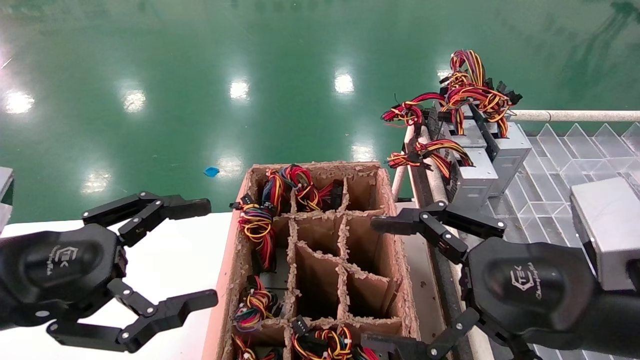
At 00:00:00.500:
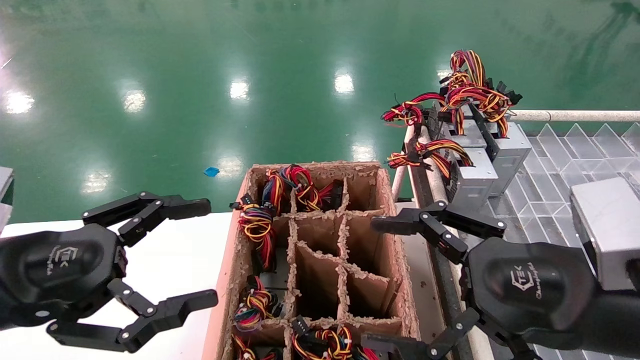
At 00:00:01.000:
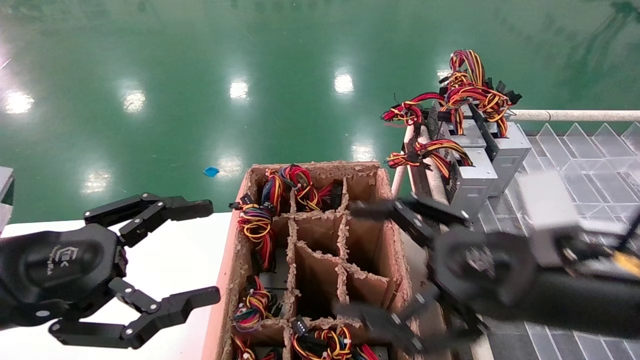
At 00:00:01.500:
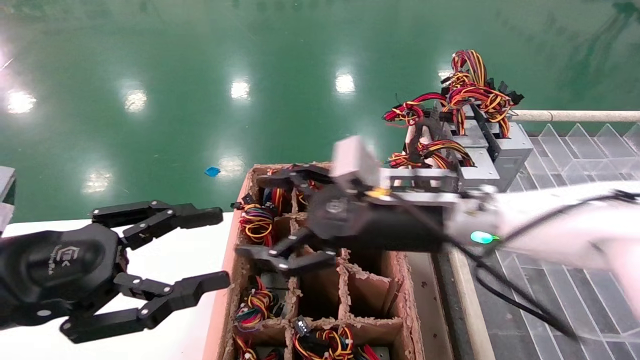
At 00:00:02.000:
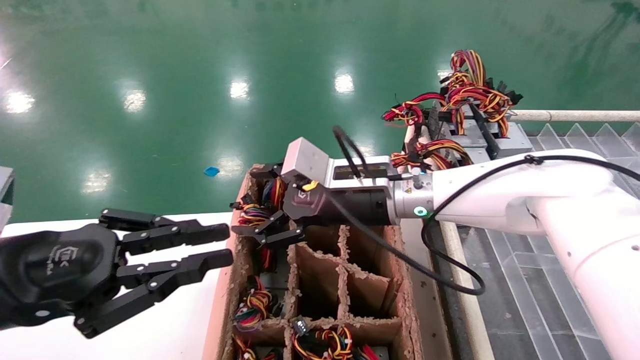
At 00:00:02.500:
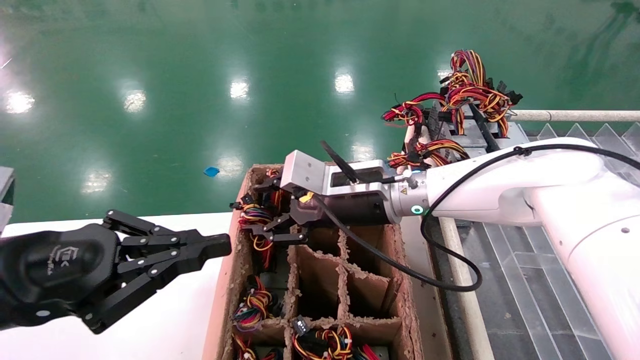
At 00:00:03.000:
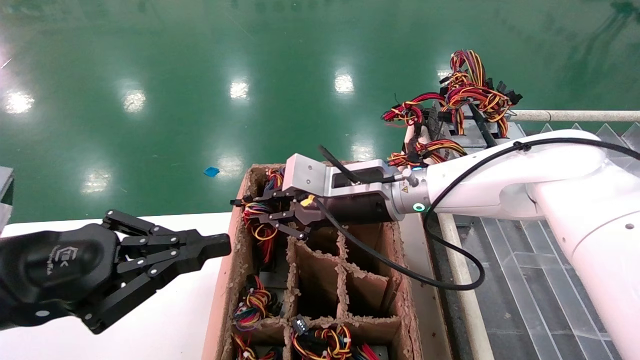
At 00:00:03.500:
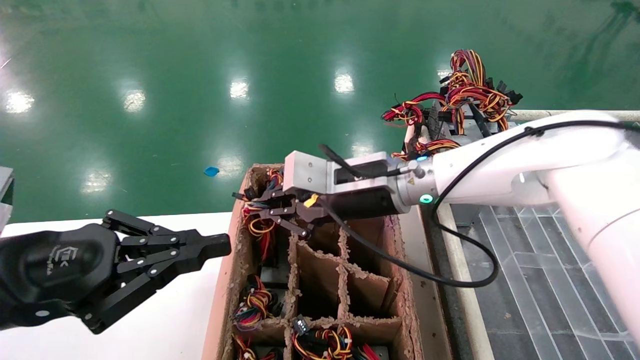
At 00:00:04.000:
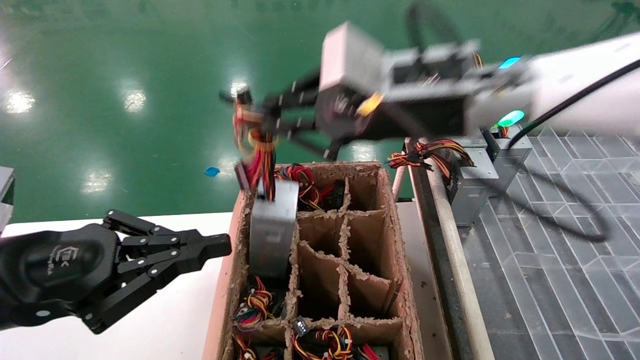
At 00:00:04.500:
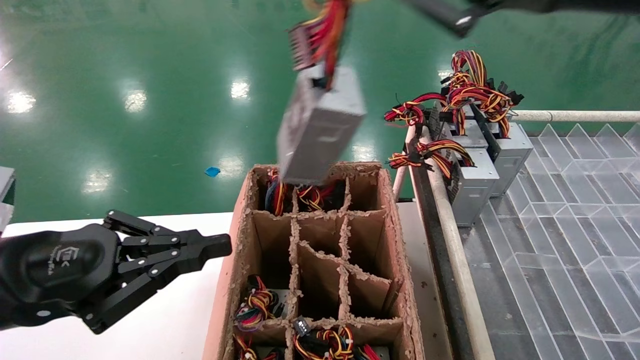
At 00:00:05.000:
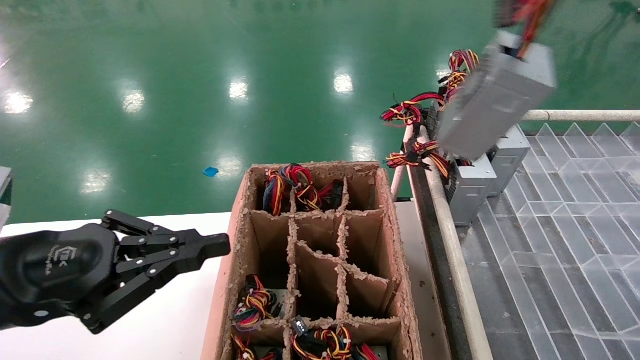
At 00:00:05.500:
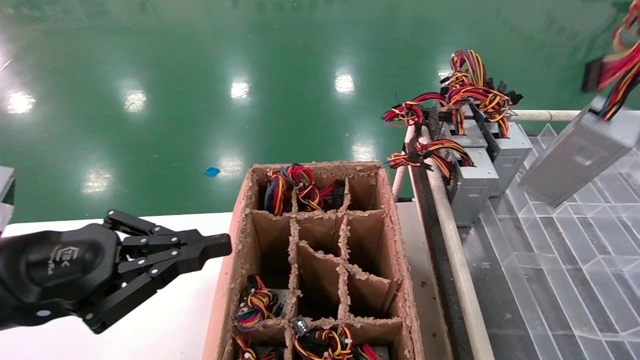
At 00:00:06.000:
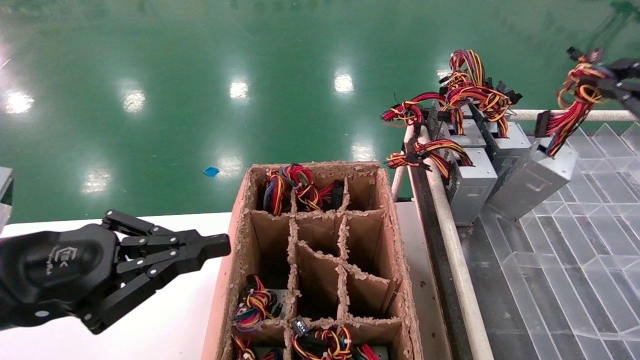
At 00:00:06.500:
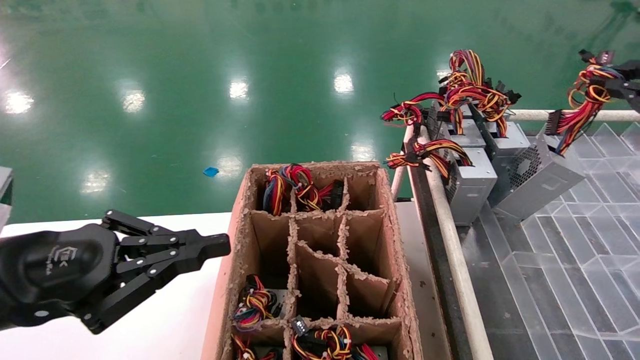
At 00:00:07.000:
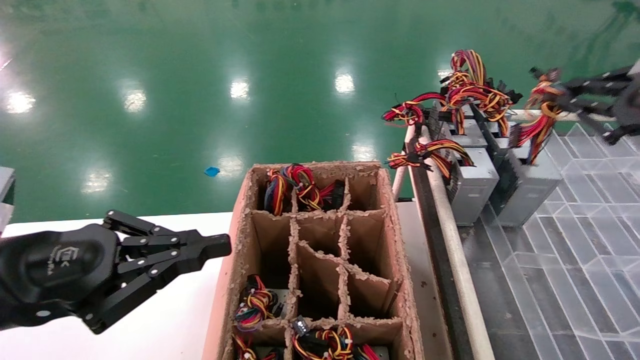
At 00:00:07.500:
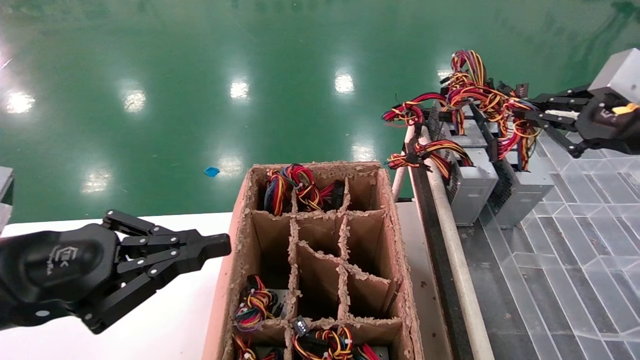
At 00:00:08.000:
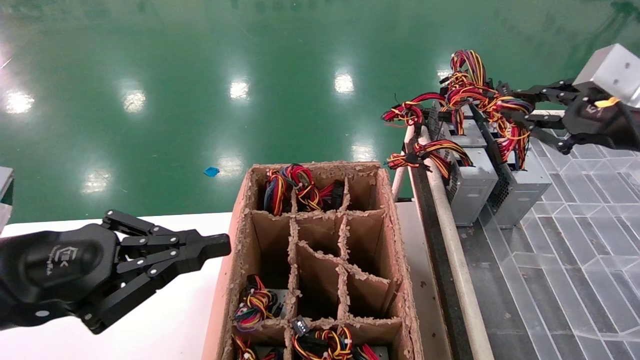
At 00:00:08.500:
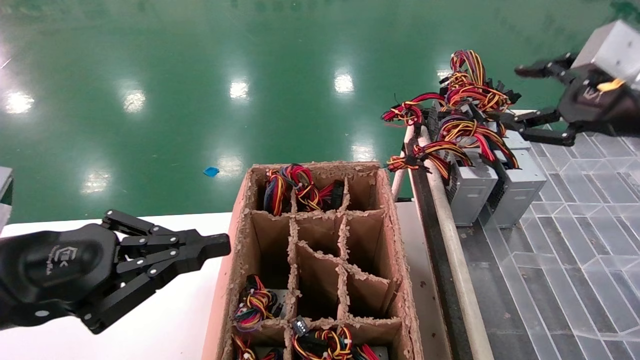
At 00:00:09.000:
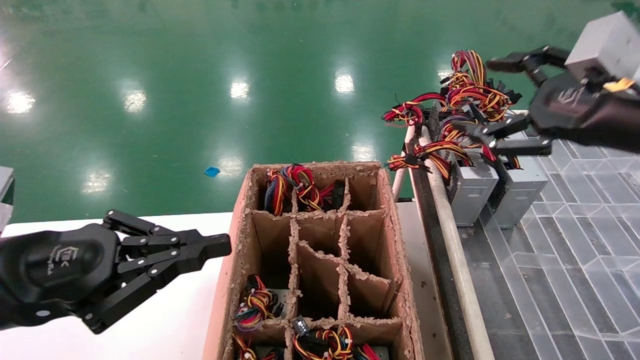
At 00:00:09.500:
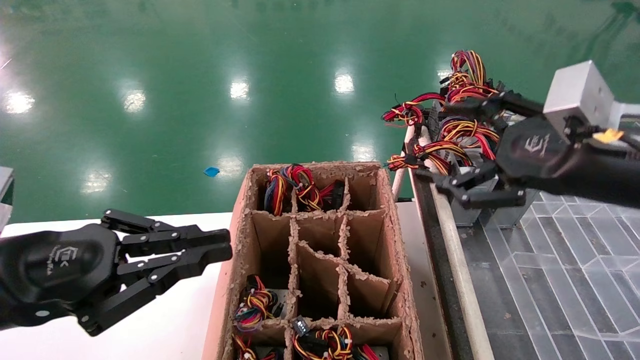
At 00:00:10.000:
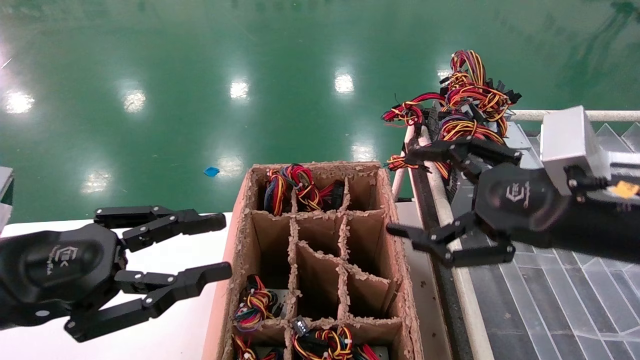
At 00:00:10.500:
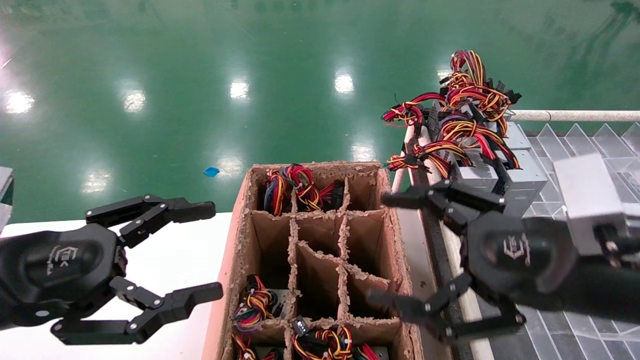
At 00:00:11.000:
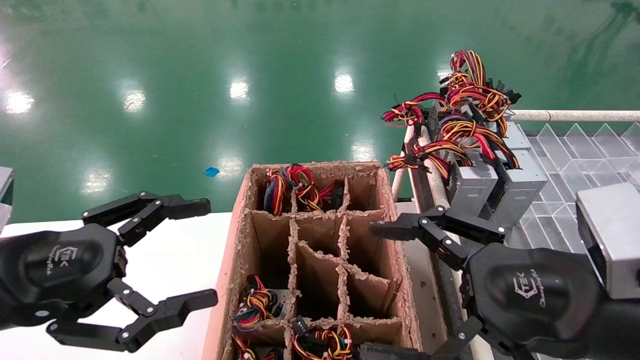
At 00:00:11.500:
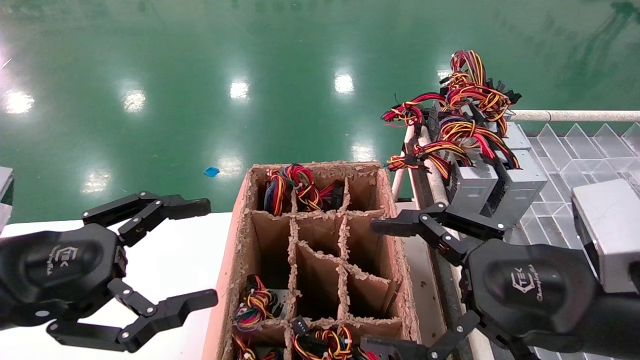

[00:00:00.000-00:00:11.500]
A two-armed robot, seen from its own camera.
Step, 00:00:01.500 to 00:00:03.000: Grab the main unit power supply from the containment box.
Step, 00:00:03.500 to 00:00:10.000: Place the main unit power supply in the designated area.
00:00:00.000 to 00:00:02.000: The right gripper travels forward and to the left by about 25 cm, while the left gripper closes its fingers.
00:00:02.000 to 00:00:04.000: The right gripper shifts about 15 cm upward and backward, and closes its fingers.
00:00:04.000 to 00:00:06.000: The right gripper moves to the right, roughly 30 cm.
00:00:06.000 to 00:00:07.500: The right gripper moves forward, some 5 cm.
00:00:07.500 to 00:00:09.500: The right gripper heads to the left, covering about 10 cm, and opens its fingers.
00:00:09.500 to 00:00:11.500: The right gripper shifts some 10 cm downward, backward and to the left. The left gripper opens.

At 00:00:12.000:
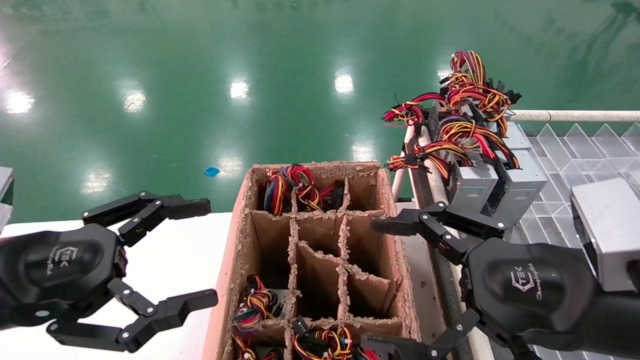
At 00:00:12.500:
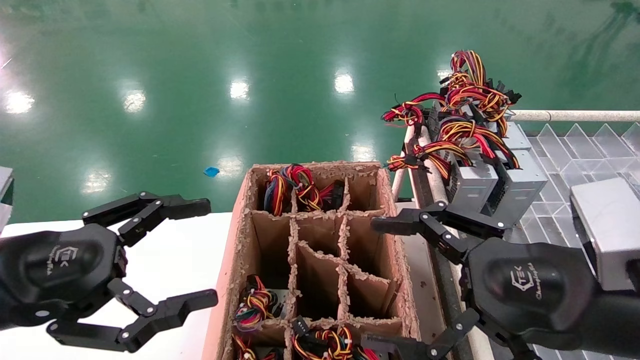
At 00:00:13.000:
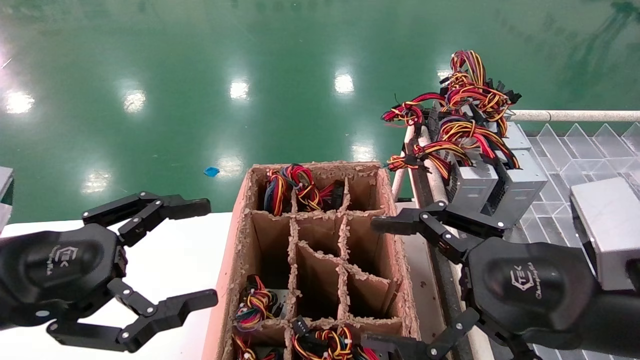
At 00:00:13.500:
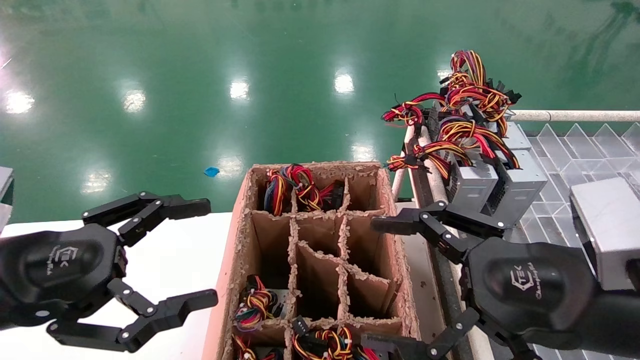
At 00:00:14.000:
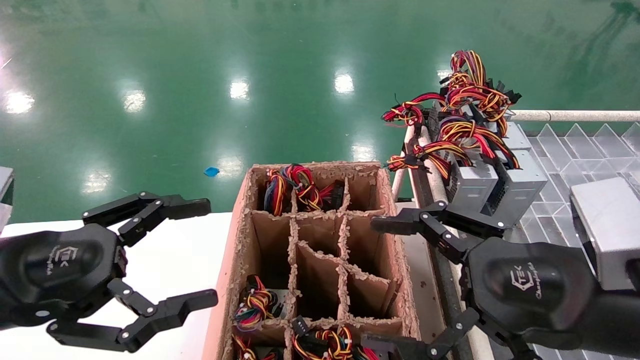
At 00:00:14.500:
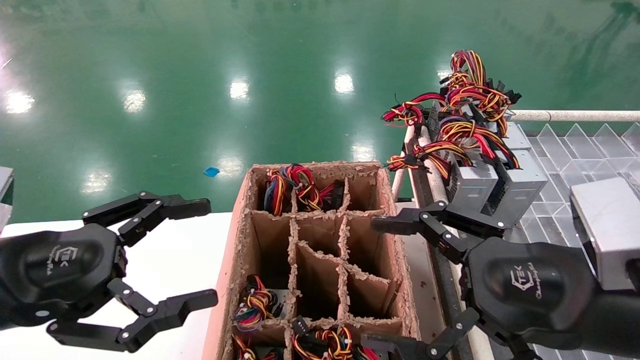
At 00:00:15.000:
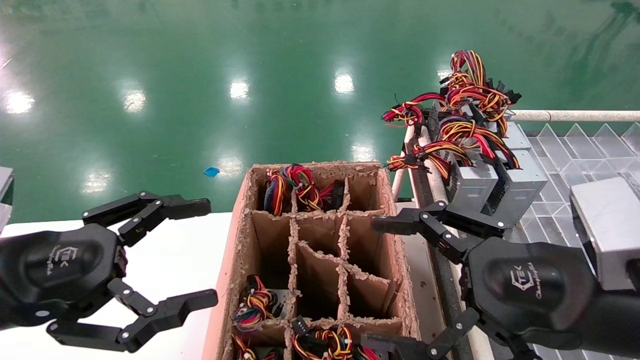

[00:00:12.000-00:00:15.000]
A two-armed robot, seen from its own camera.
00:00:12.000 to 00:00:15.000: Both grippers stay about where they are.
